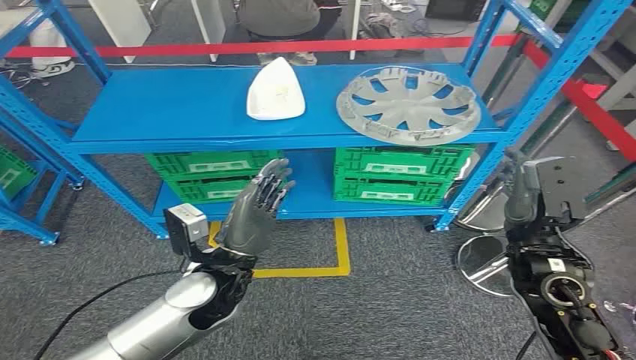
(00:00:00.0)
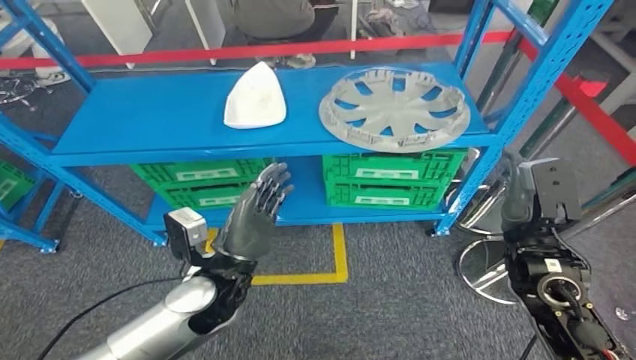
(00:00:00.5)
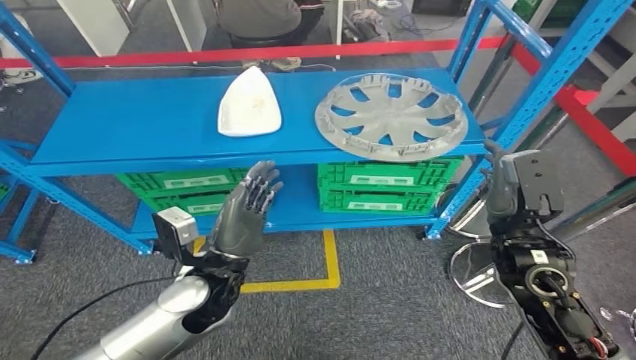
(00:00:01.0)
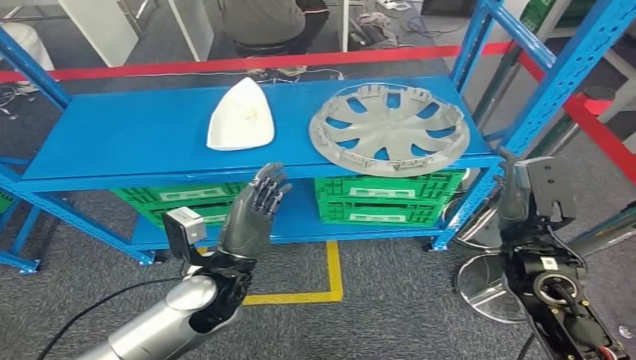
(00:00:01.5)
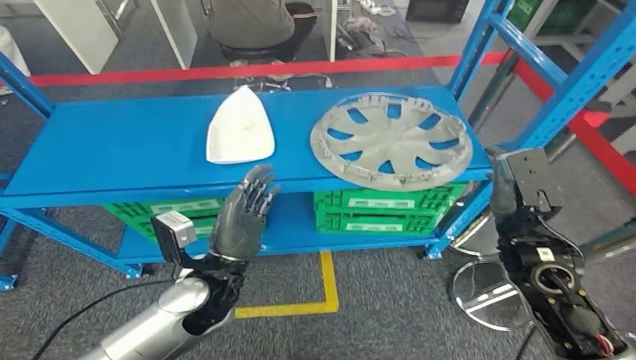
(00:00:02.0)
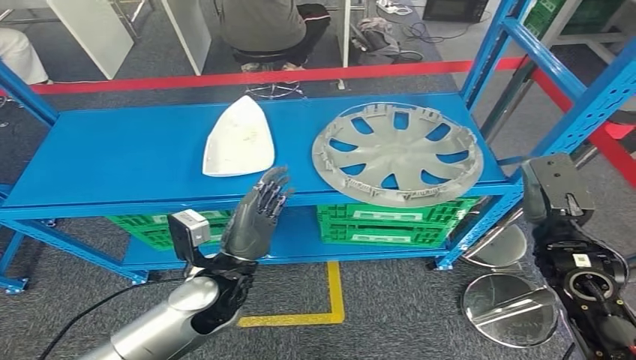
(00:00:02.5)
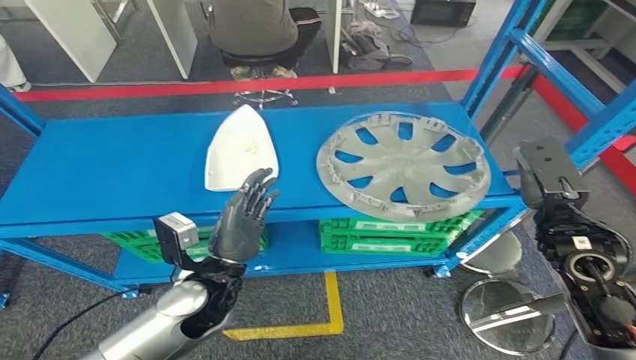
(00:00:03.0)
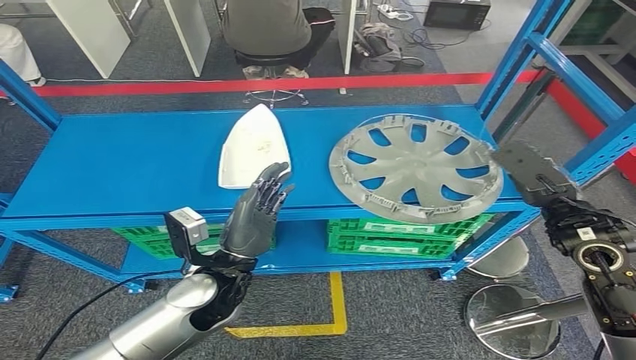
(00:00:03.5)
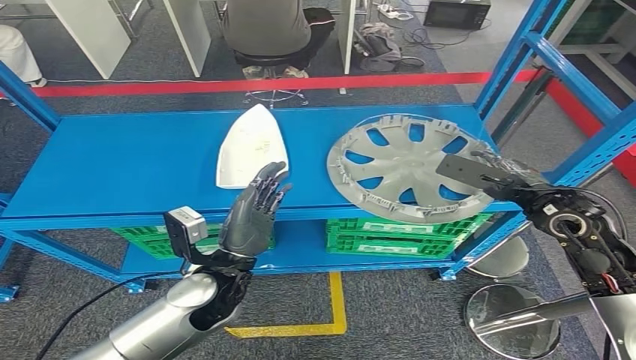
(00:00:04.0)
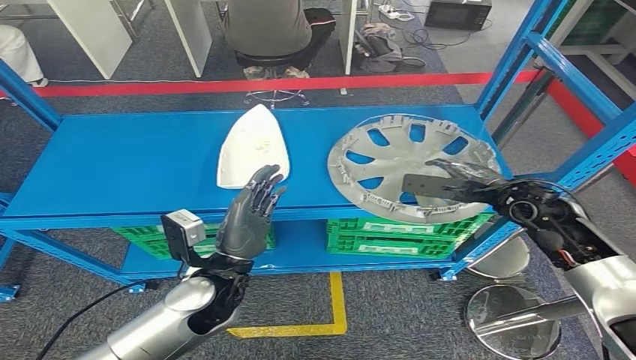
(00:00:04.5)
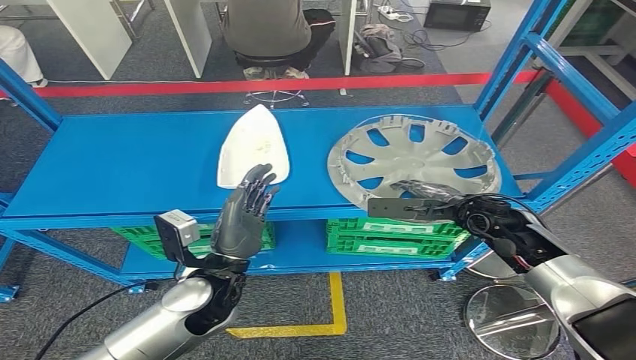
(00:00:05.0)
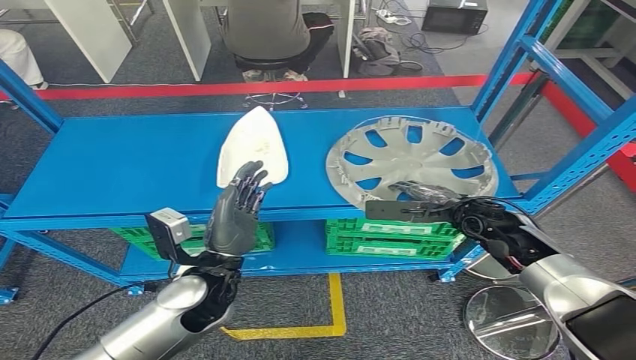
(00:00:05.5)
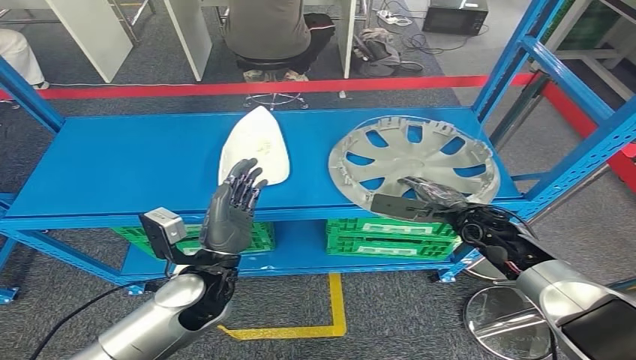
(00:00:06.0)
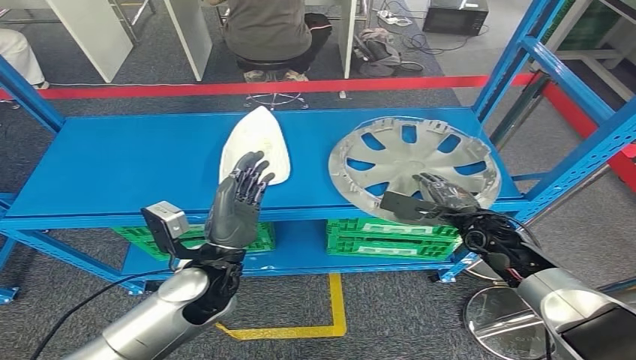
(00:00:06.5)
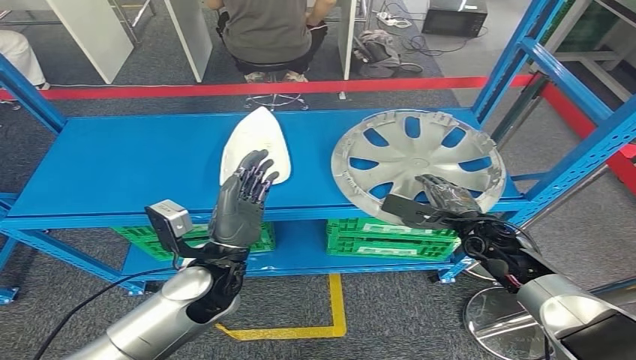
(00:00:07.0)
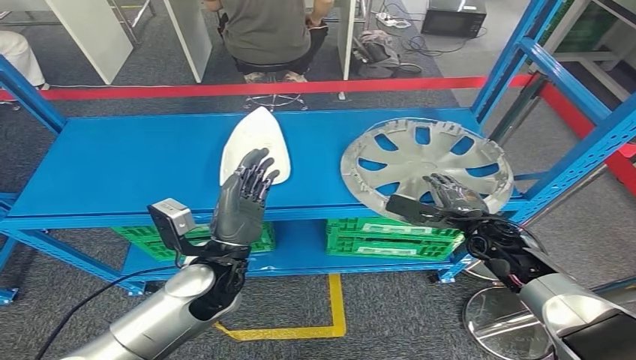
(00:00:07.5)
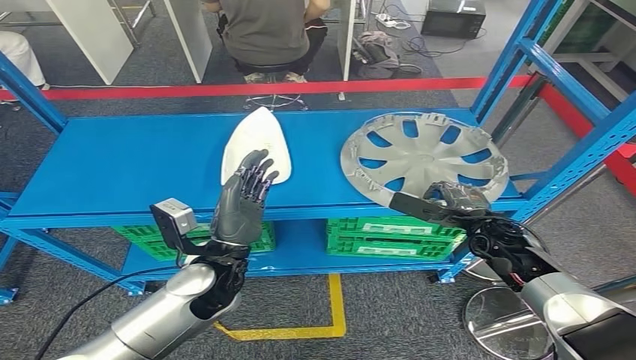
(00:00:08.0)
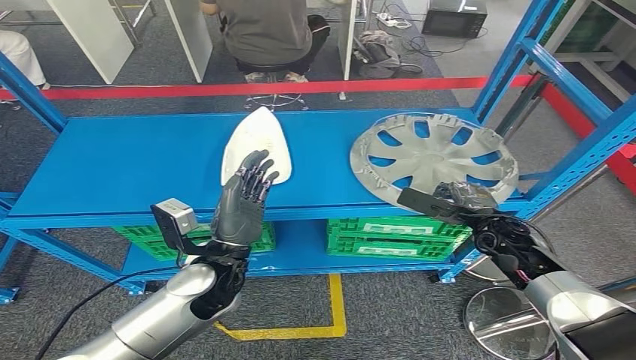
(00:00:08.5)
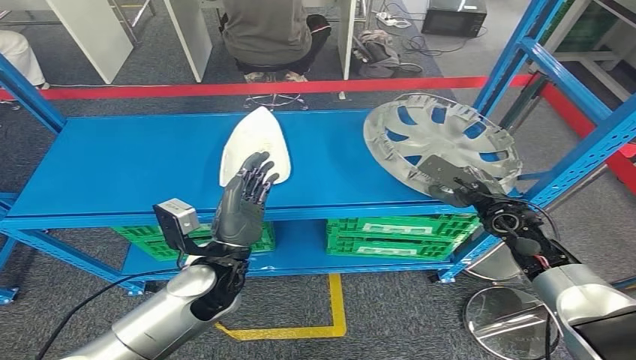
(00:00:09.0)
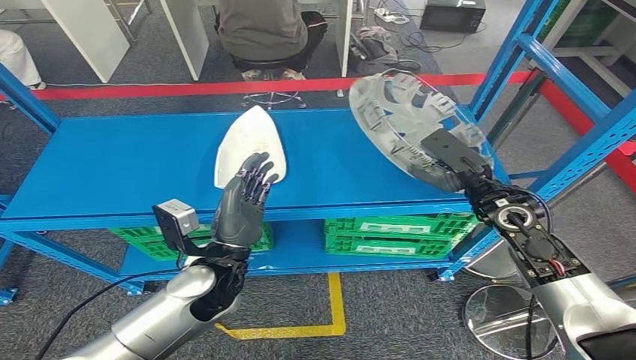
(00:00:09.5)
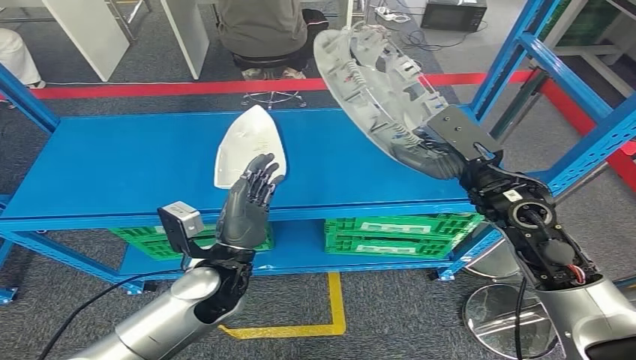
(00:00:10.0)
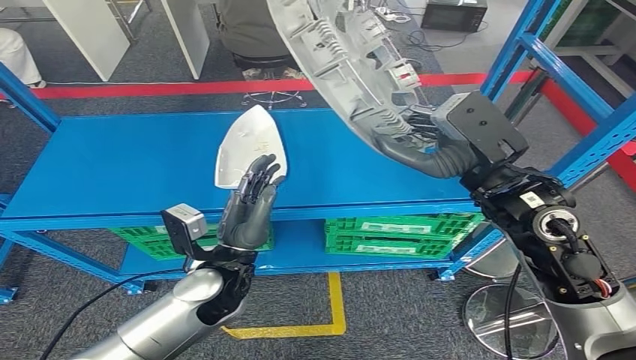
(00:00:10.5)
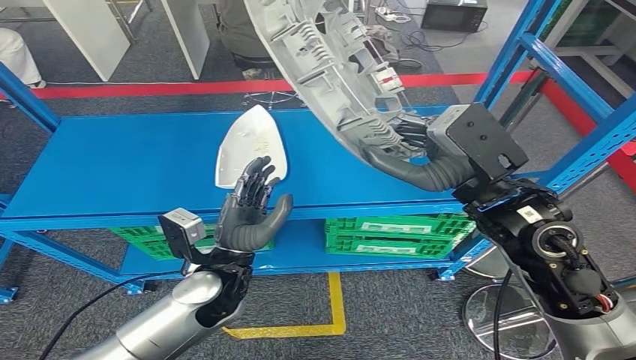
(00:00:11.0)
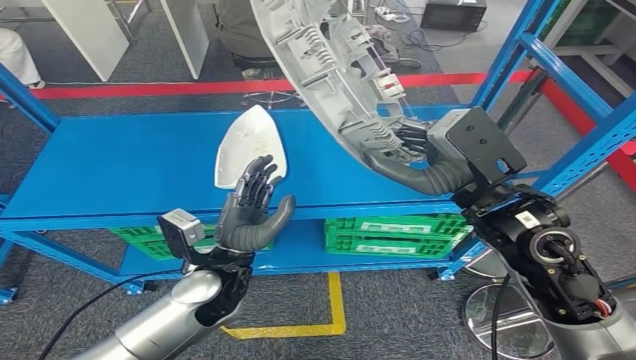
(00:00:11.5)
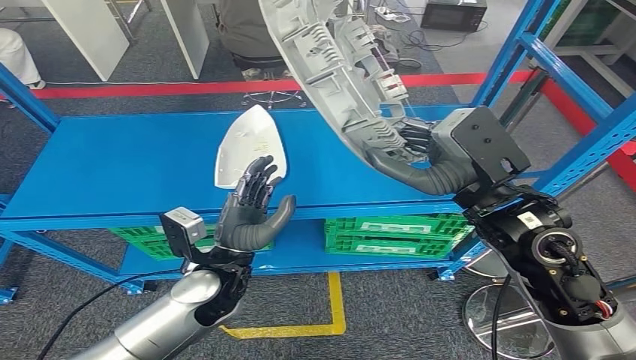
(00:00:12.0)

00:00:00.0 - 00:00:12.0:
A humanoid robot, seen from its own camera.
Step, 00:00:00.0 - 00:00:11.5: Pick up the small parts from the shelf.
00:00:06.0 - 00:00:08.0: The hands make only small movements.
00:00:10.0 - 00:00:12.0: The right hand is displaced backward, upward and to the left by about 10 cm.

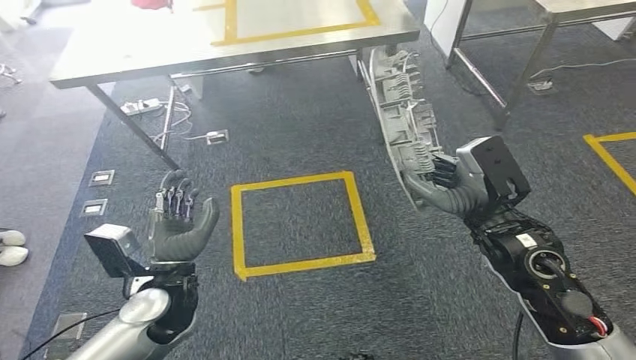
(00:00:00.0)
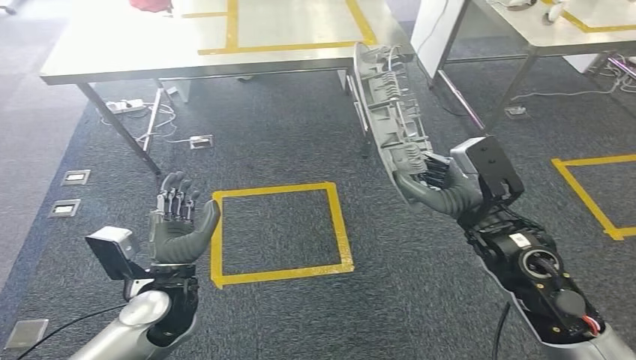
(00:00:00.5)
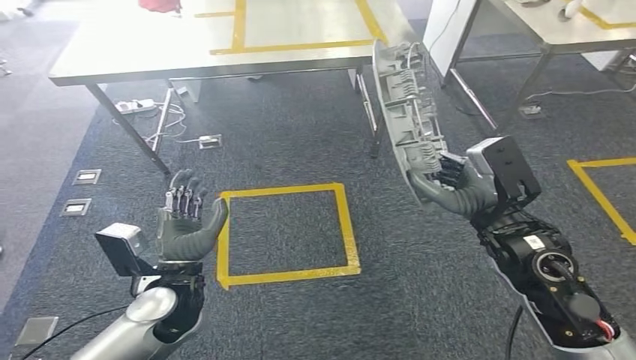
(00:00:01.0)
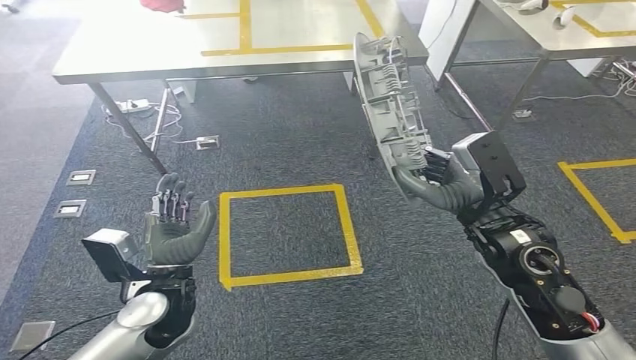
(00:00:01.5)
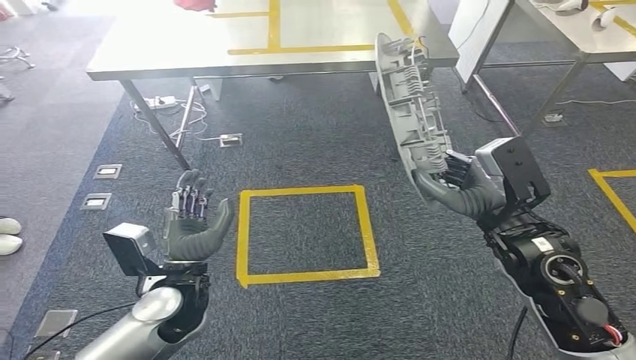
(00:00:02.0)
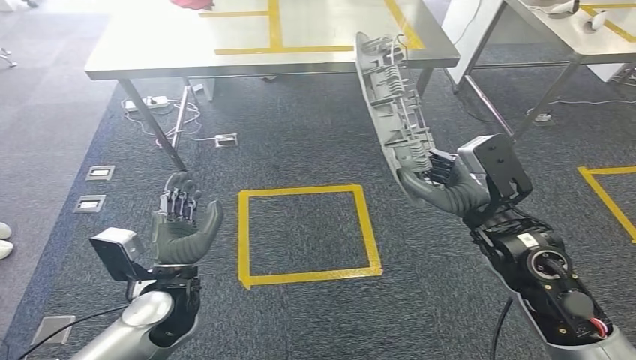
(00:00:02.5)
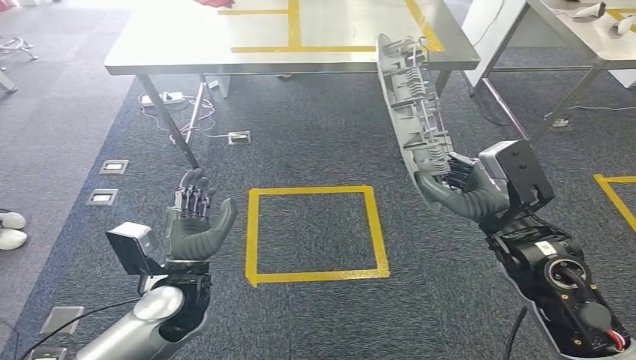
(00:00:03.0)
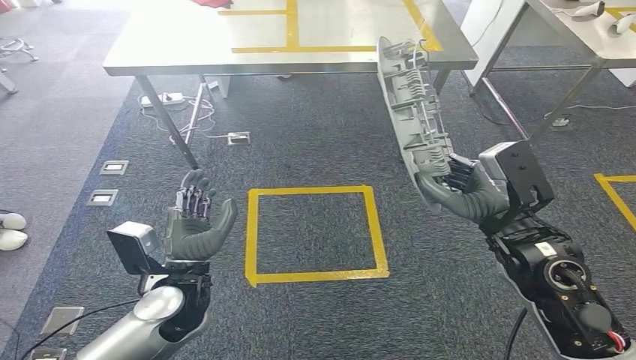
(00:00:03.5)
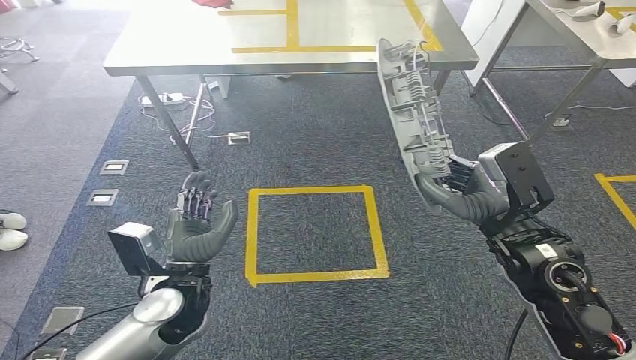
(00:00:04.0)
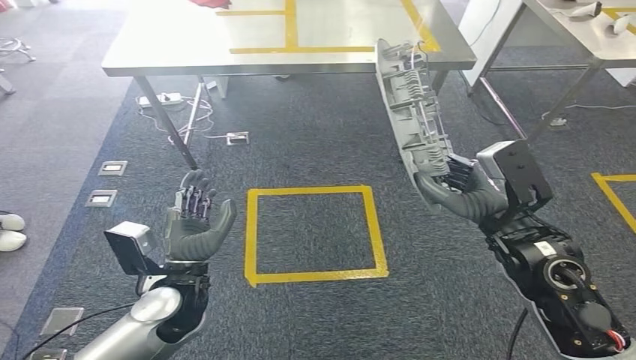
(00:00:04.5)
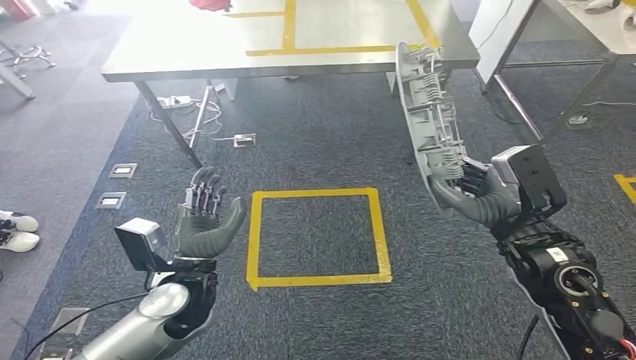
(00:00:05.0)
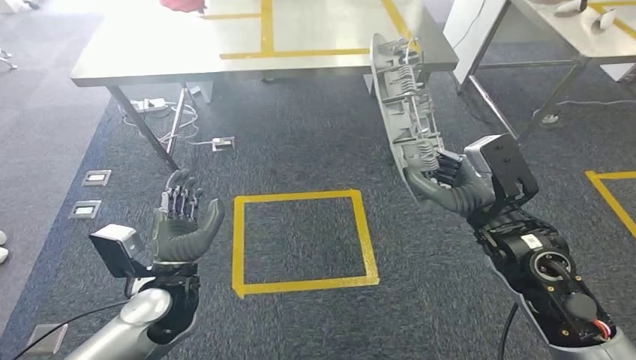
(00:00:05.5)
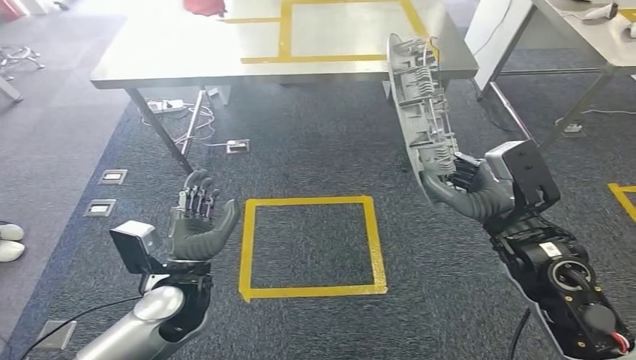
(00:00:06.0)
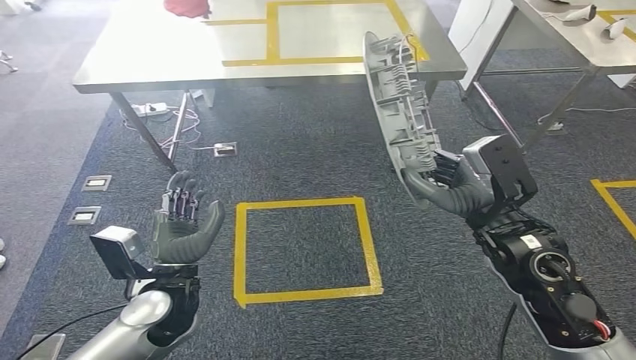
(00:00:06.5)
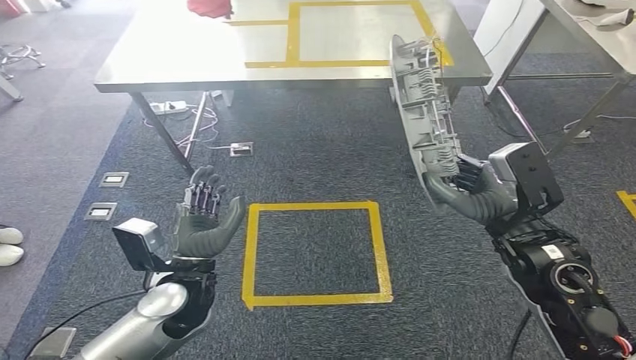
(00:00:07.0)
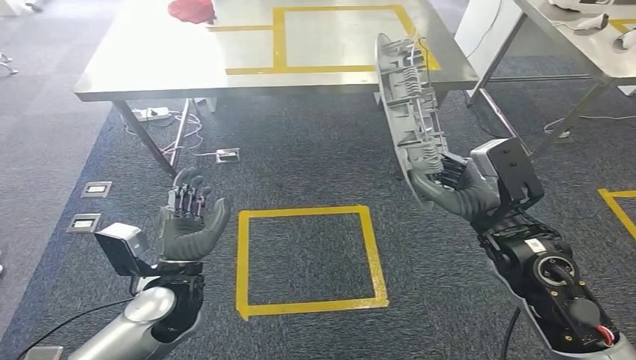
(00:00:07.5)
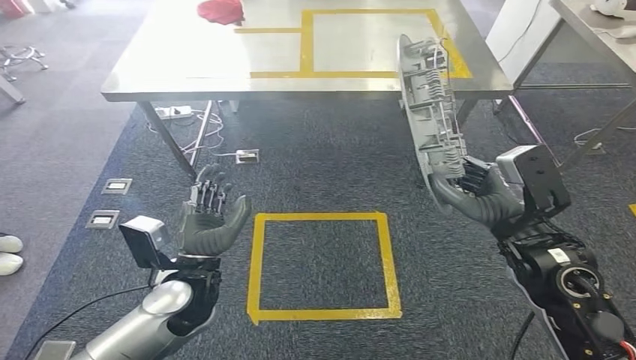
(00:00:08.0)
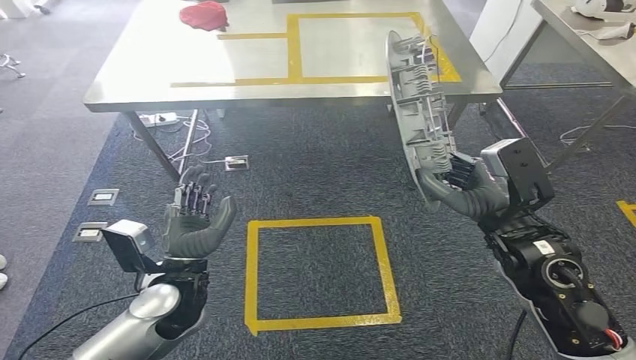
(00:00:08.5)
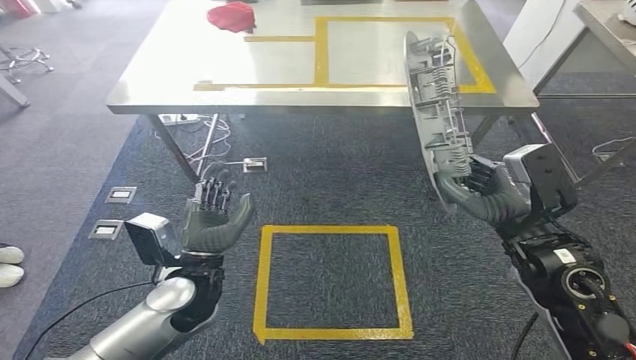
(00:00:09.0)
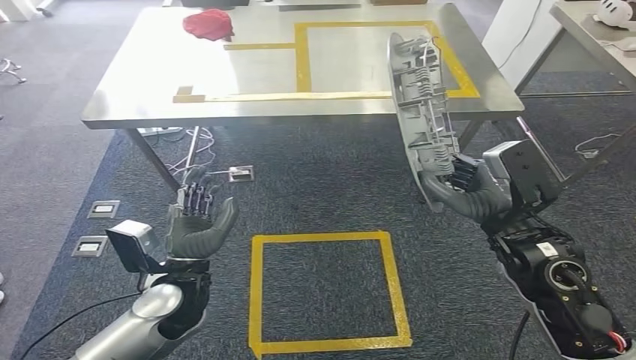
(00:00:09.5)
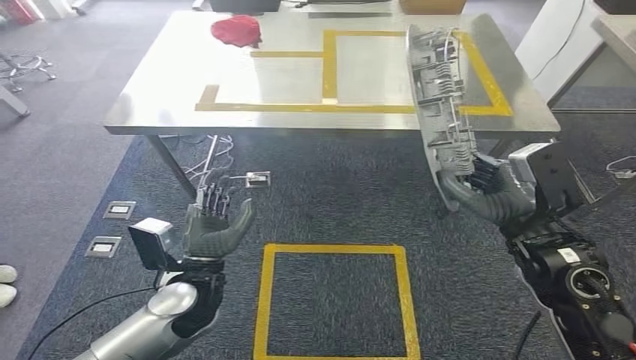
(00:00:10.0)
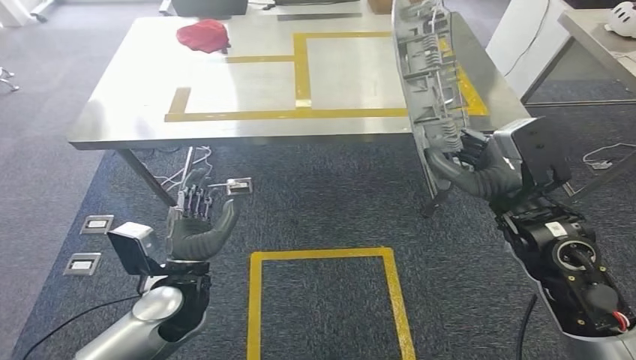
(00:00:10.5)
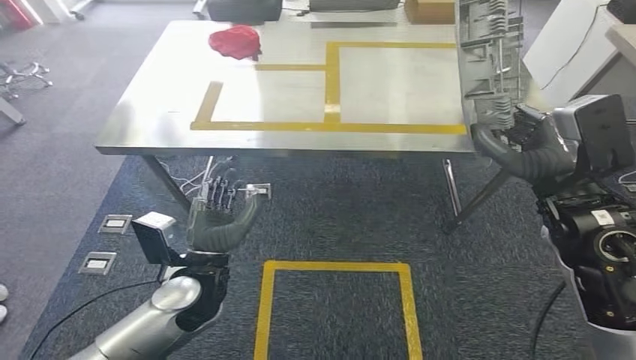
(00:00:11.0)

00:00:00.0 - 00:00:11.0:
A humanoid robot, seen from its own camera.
00:00:02.0 - 00:00:03.5: Both hands stay about where they are.
